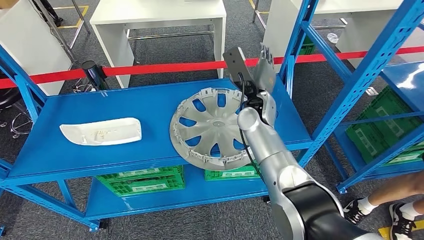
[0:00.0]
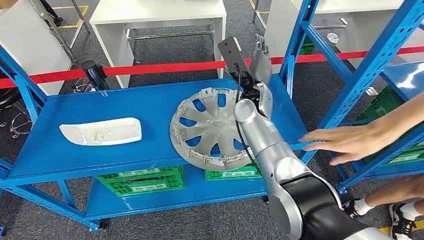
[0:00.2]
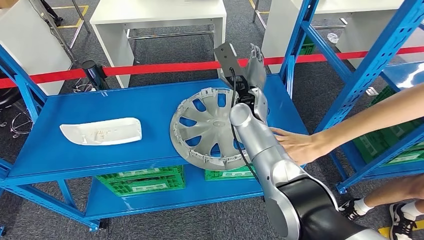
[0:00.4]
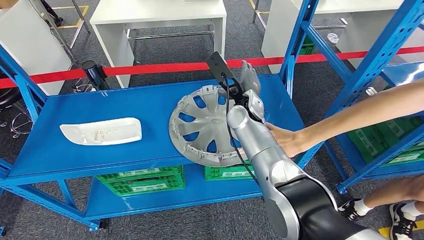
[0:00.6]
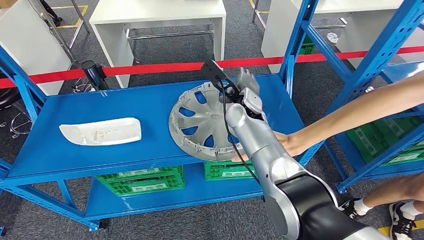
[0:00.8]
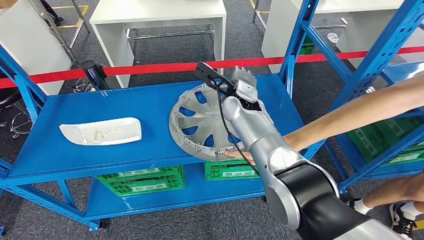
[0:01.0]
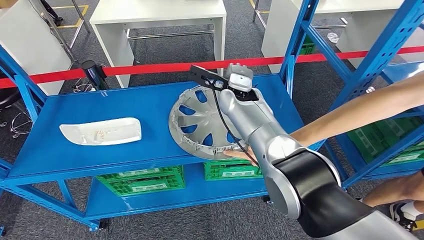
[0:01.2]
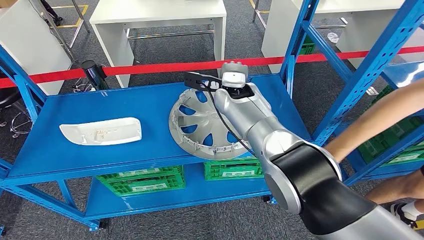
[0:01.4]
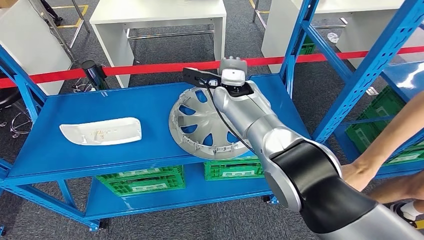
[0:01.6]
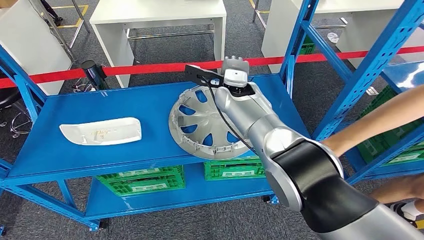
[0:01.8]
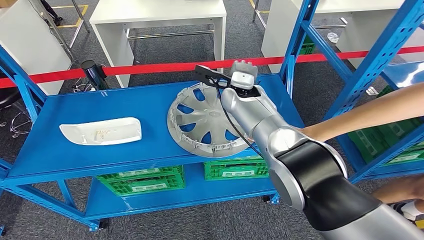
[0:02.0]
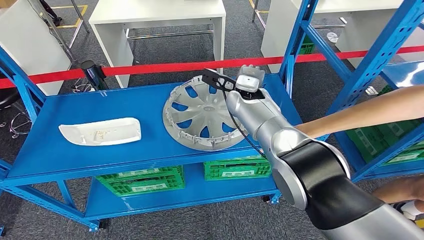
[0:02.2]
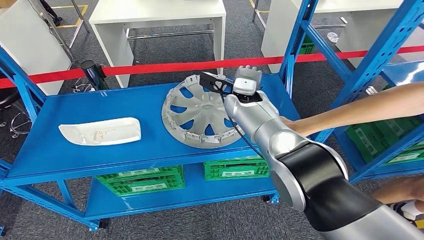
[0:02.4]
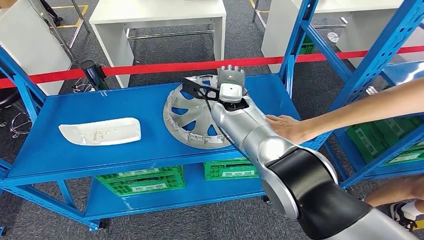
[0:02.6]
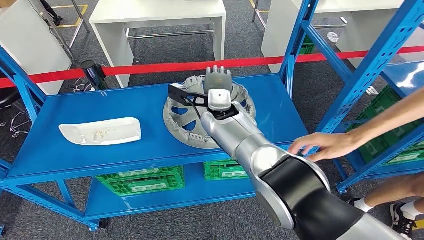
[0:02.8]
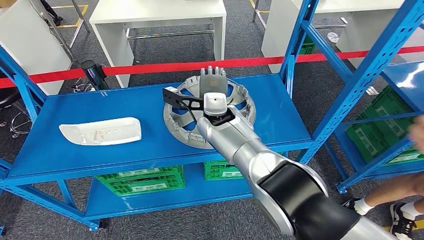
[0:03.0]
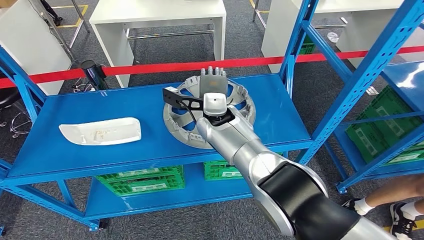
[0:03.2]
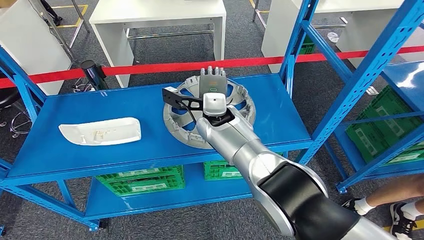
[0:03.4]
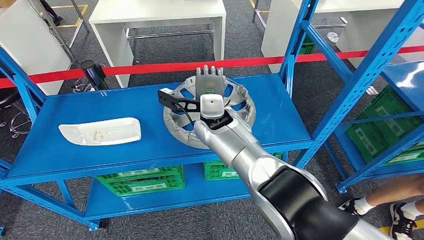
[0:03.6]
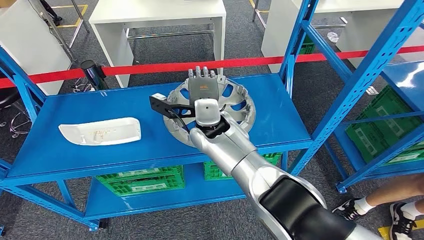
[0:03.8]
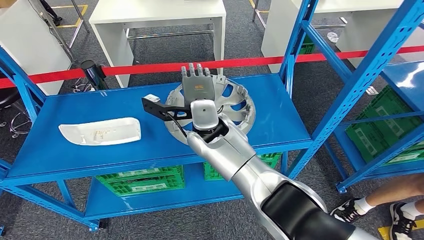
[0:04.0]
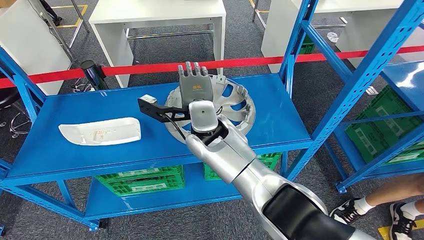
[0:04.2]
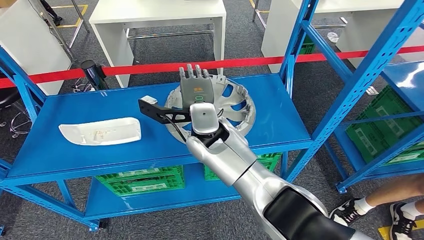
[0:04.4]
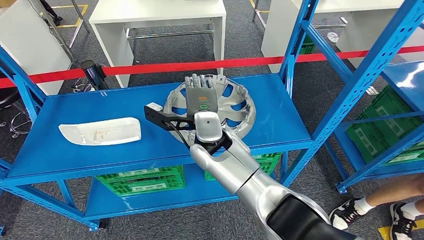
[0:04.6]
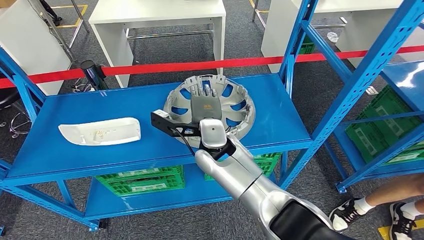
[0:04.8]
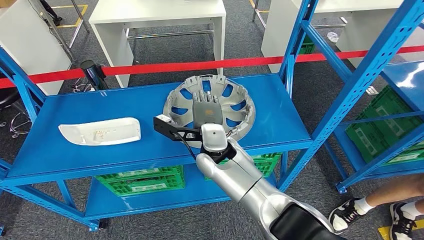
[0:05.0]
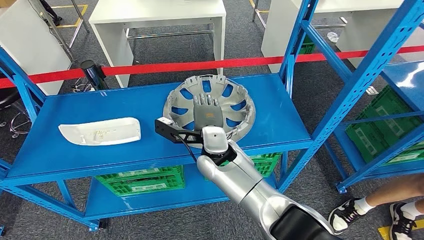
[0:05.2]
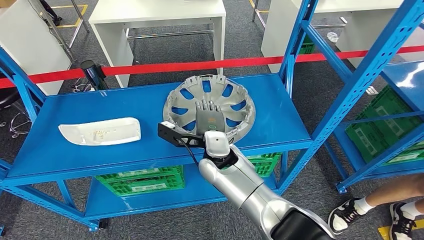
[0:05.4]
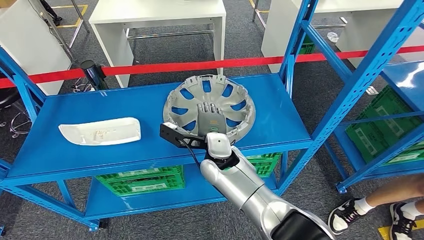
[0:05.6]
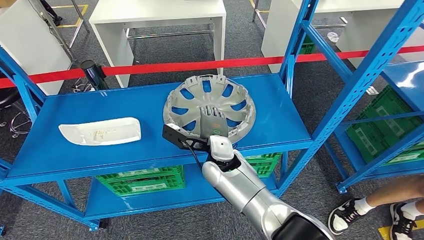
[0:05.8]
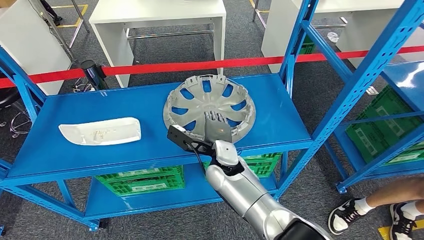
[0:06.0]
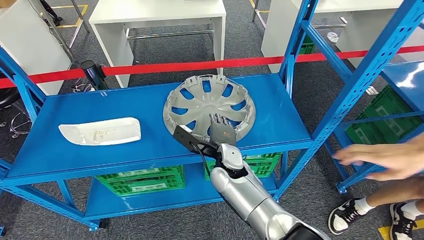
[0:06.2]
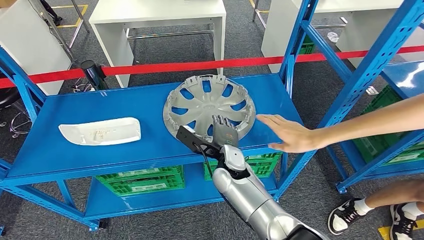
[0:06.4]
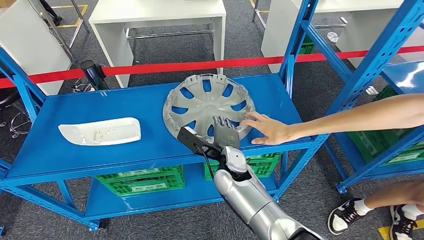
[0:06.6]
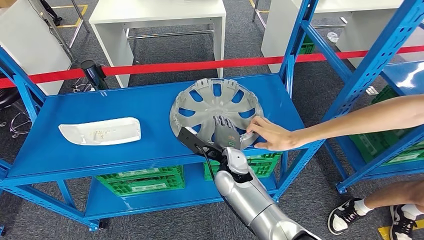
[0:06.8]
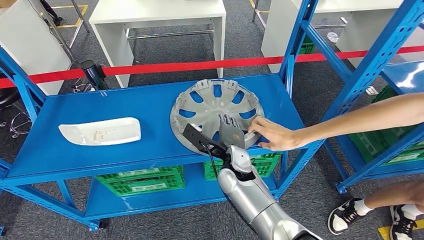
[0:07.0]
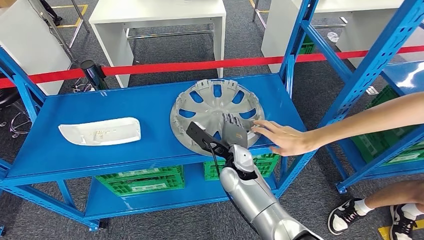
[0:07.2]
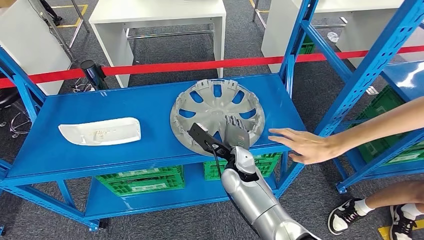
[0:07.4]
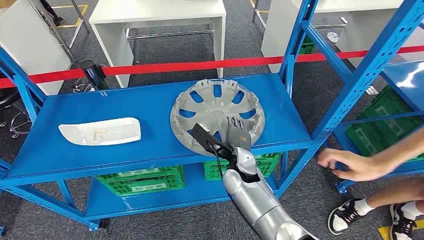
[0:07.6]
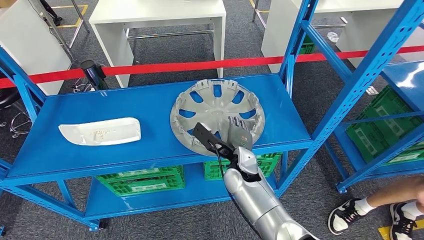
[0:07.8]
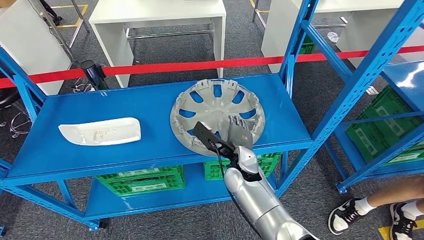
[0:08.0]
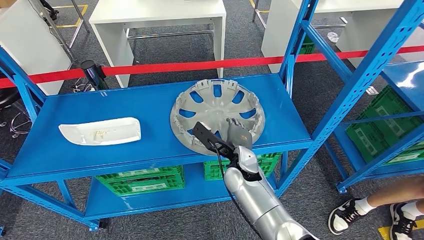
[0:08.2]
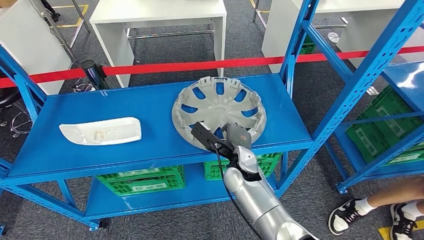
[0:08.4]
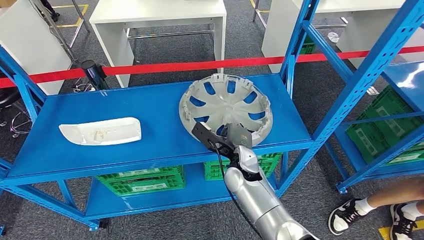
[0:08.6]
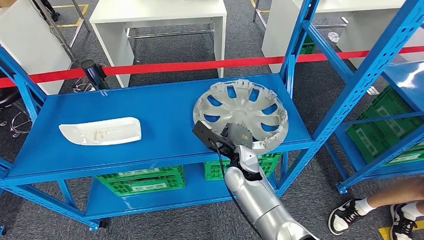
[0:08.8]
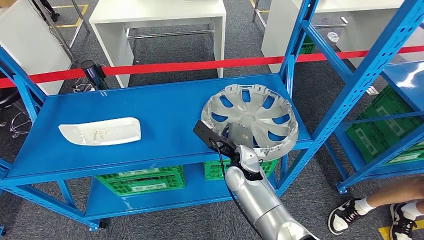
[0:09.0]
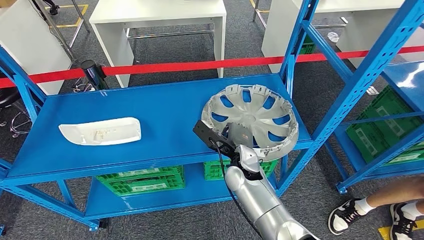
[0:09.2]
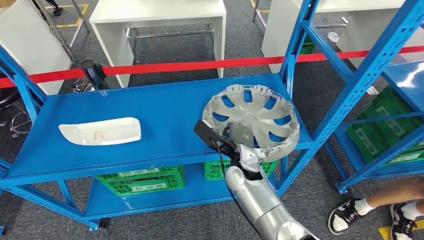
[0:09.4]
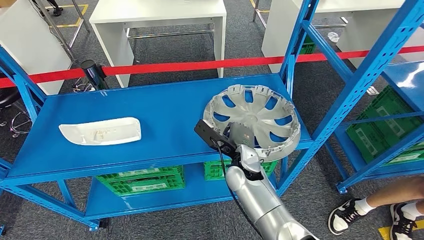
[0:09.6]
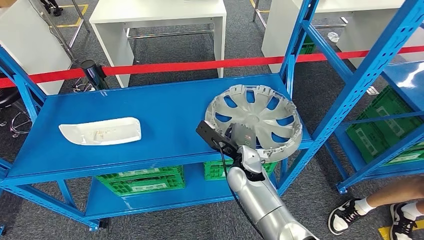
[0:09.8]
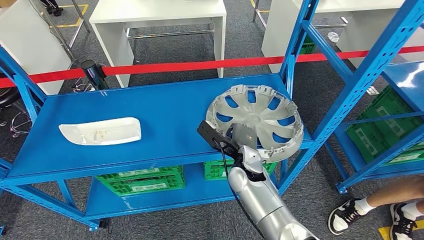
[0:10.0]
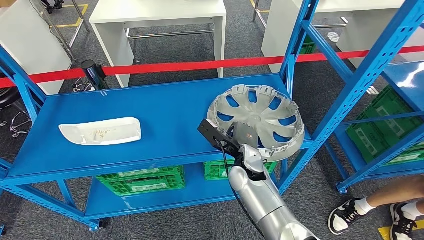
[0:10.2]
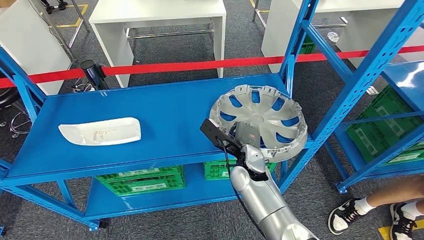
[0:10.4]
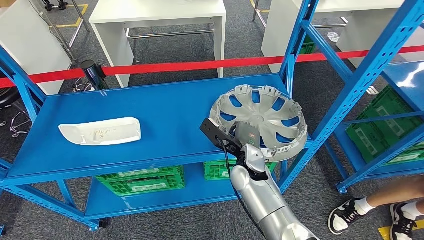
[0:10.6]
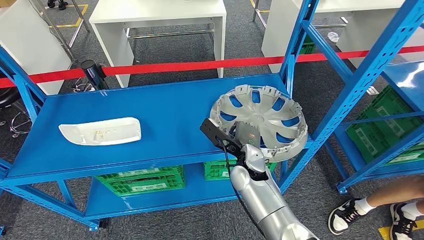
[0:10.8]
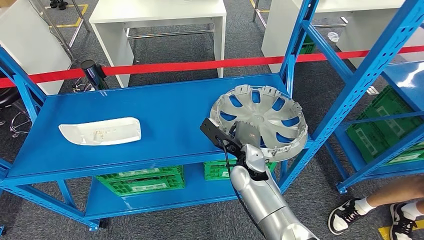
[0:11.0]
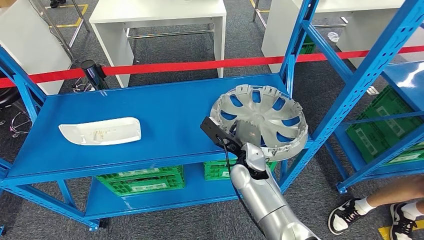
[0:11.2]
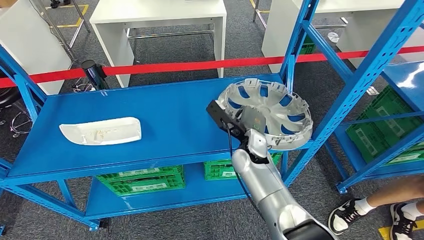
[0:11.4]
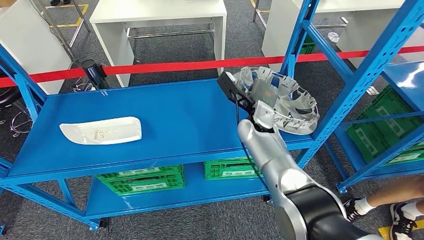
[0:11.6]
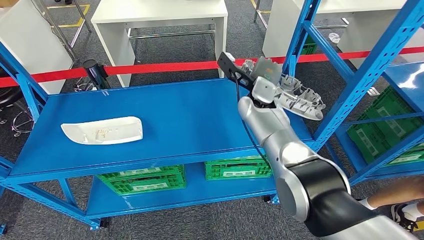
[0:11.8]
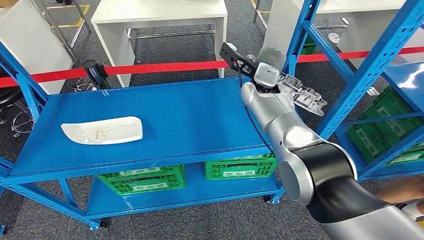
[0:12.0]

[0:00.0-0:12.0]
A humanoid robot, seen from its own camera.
0:00.0 to 0:01.6: The right hand shifts by some 10 cm.
0:01.6 to 0:03.0: The right hand heads to the left, covering about 5 cm.
0:03.0 to 0:04.4: The right hand heads backward, covering approximately 5 cm.
0:04.4 to 0:06.0: The right hand shifts about 10 cm downward.
0:06.0 to 0:07.6: The hands make only small movements.
0:07.6 to 0:09.0: Both hands stay put.
0:09.0 to 0:10.4: The hands make only small movements.

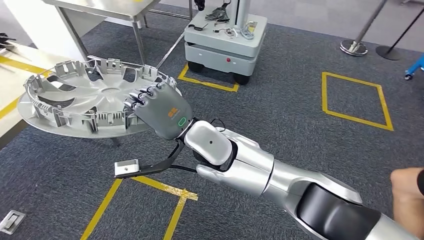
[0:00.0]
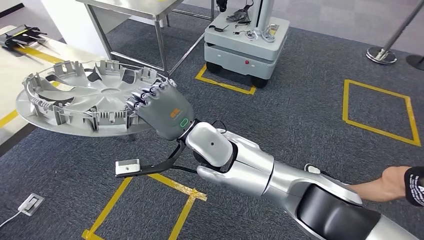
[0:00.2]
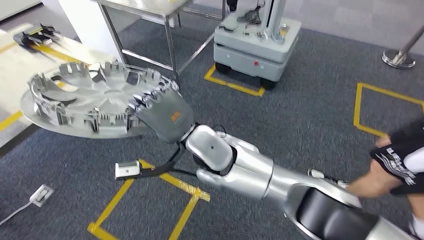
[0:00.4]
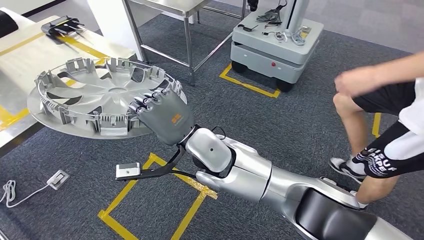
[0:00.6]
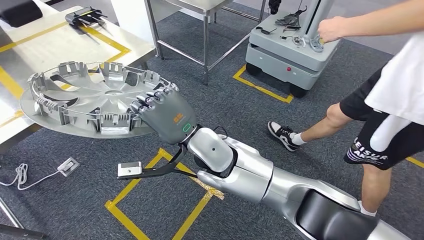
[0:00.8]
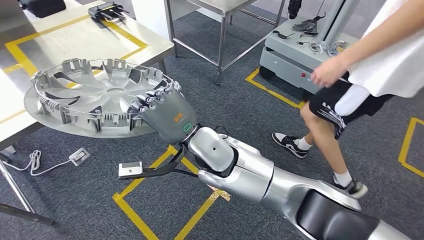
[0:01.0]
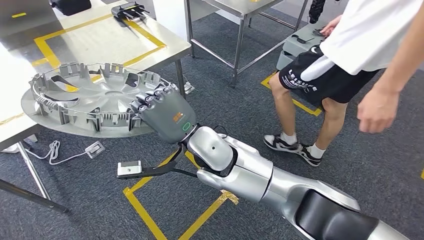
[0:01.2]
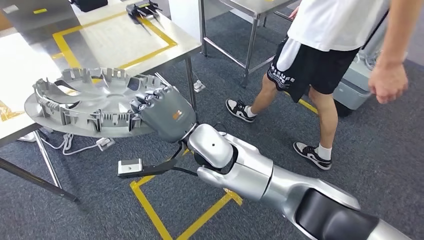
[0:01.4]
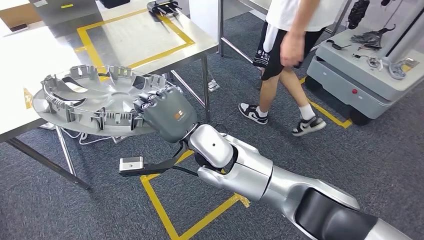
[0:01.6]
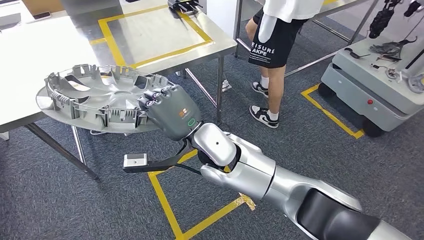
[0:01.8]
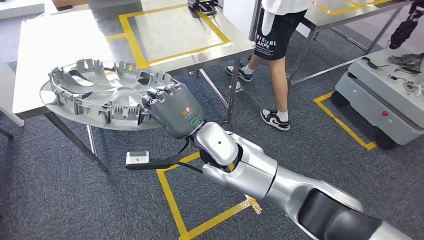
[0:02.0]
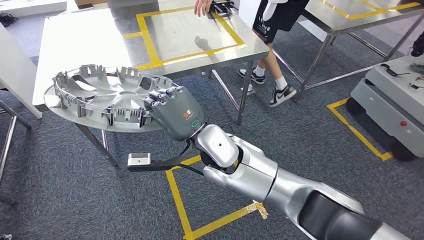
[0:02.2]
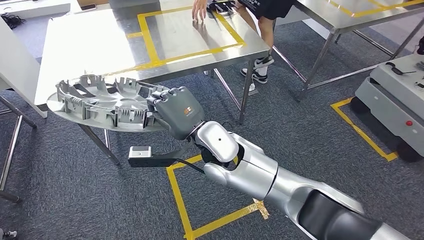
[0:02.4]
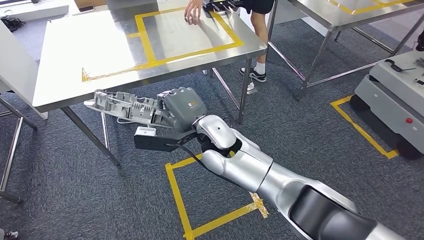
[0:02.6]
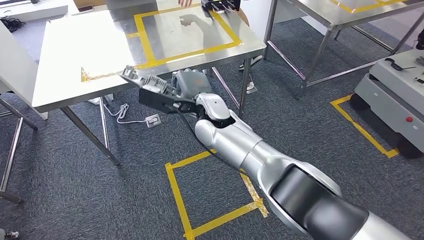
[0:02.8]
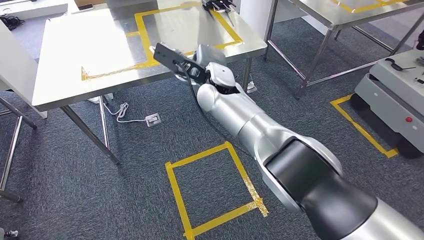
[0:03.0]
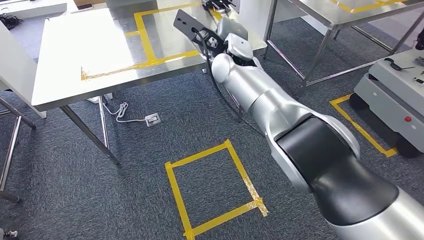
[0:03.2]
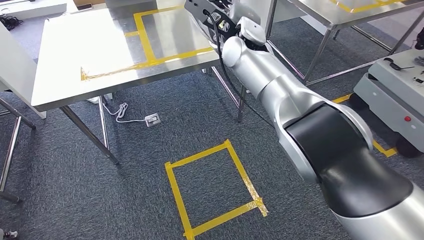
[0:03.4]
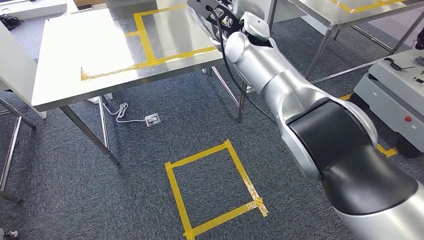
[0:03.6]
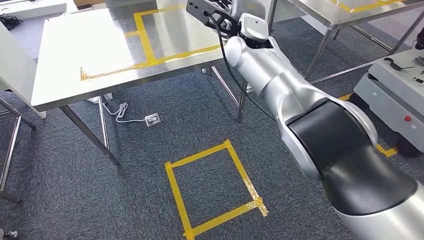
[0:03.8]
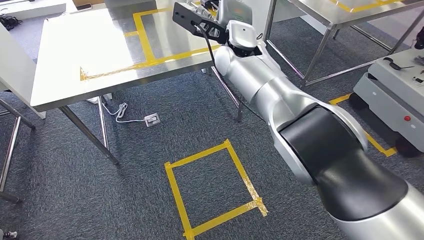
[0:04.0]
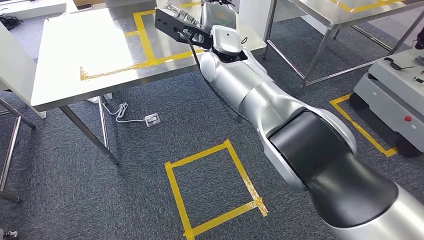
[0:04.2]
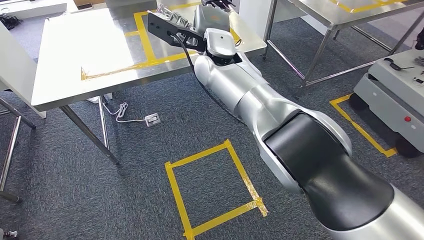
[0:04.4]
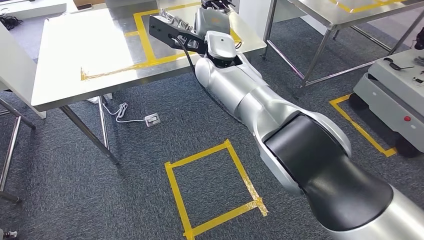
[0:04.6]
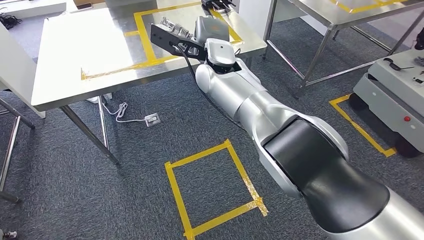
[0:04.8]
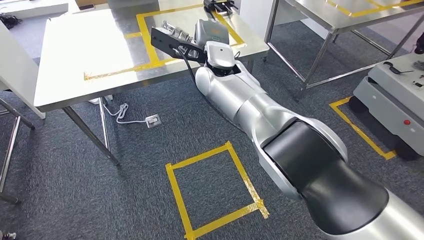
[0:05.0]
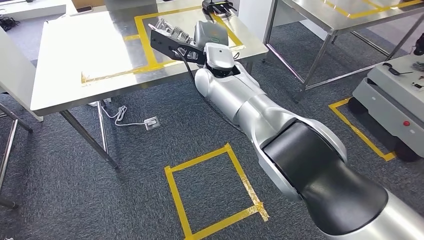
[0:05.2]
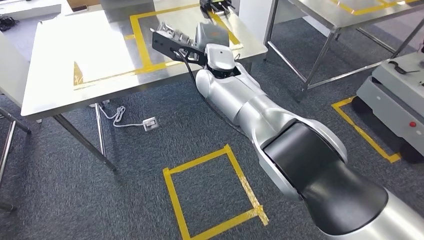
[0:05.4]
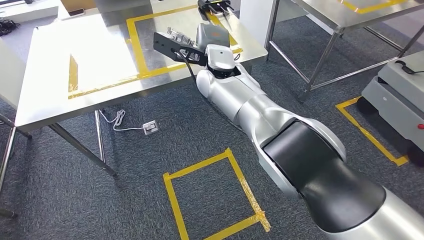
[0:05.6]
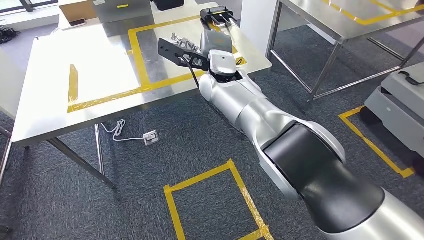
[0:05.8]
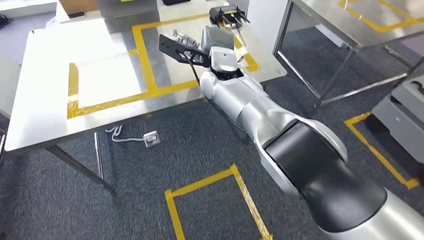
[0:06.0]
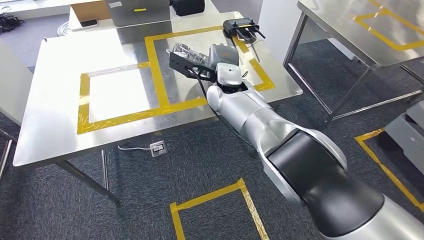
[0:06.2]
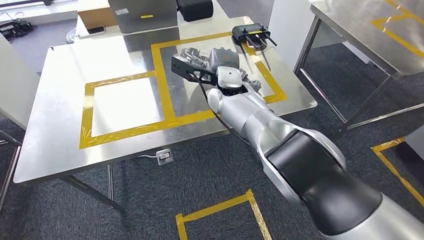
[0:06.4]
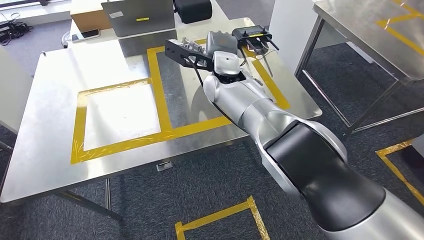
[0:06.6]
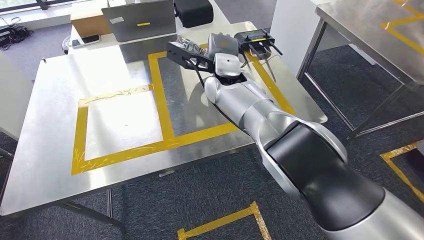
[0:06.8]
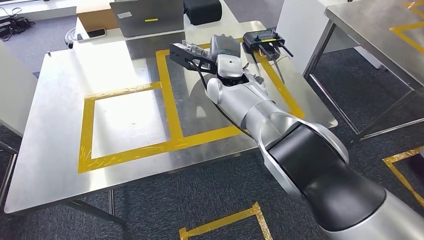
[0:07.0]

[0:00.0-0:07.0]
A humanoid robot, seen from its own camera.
Step, 0:00.0 to 0:07.0: Move the small component to the workbench.
